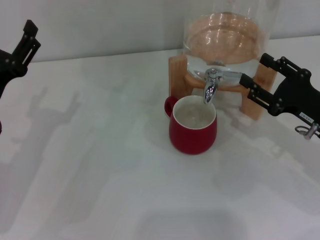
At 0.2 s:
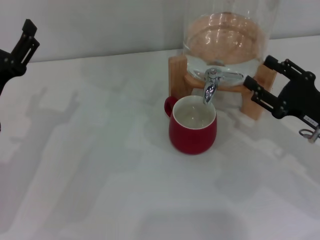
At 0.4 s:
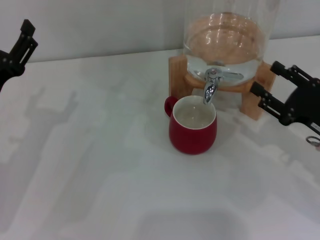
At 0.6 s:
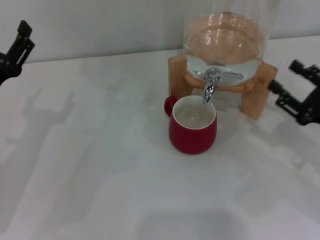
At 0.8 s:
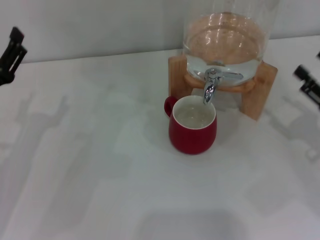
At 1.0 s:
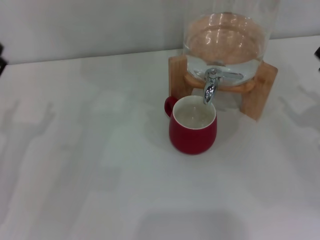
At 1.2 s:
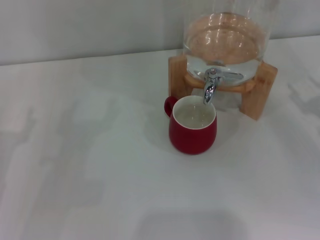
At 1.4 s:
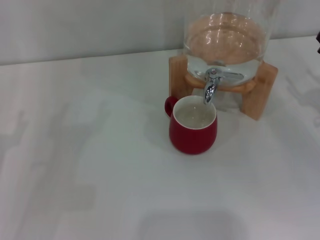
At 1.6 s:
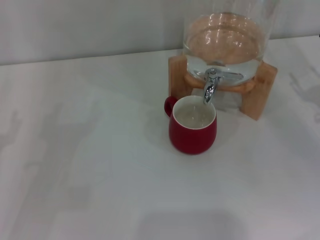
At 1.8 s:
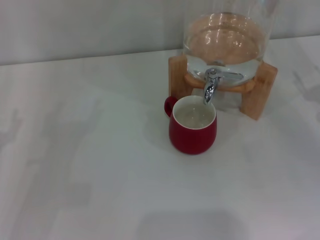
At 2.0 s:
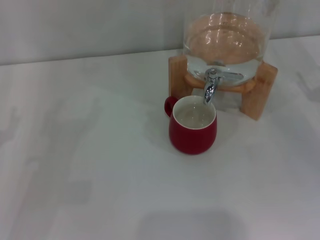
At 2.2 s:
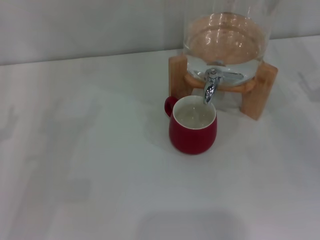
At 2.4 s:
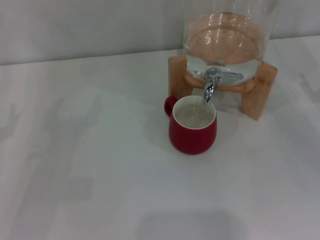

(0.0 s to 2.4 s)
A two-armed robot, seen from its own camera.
Task of the whole recording: the left gripper pick up the red cup and place it horizontally under the faucet, the right gripper turn on the faucet to fill the cup, and then turn off the faucet.
0.0 s - 1.2 s: The left gripper ends up some 5 cm from where it was, while the right gripper shifts roughly 5 cm to the right.

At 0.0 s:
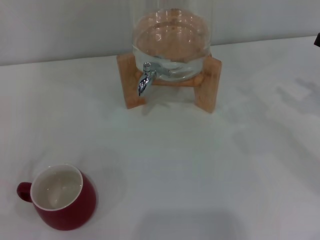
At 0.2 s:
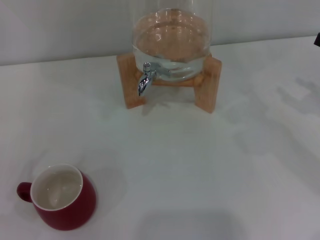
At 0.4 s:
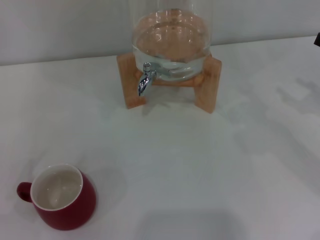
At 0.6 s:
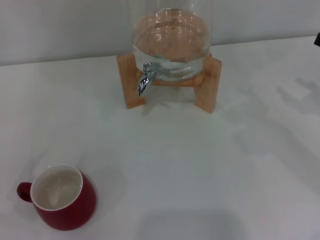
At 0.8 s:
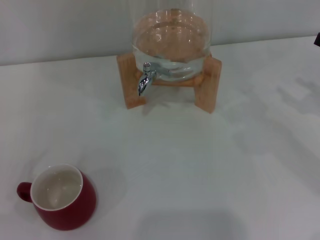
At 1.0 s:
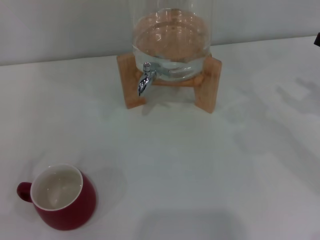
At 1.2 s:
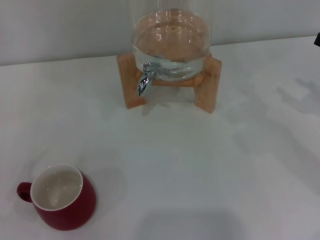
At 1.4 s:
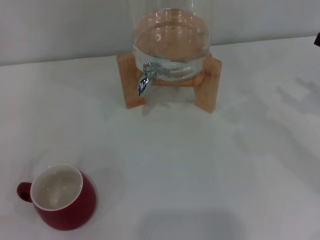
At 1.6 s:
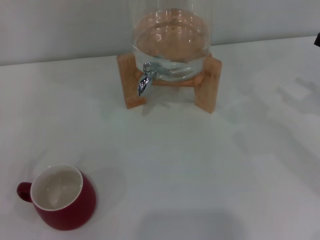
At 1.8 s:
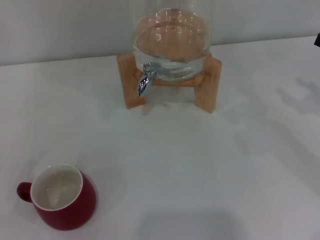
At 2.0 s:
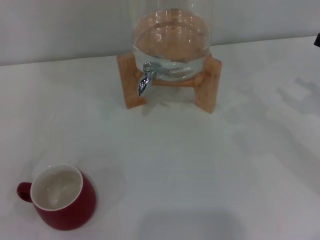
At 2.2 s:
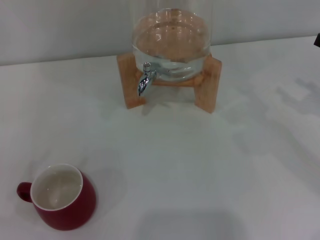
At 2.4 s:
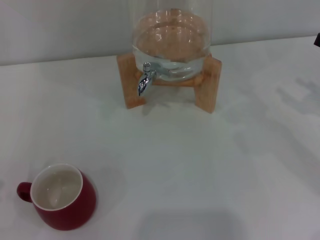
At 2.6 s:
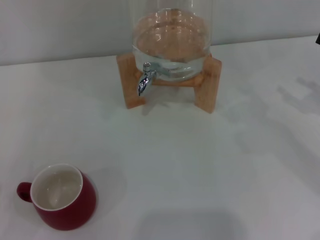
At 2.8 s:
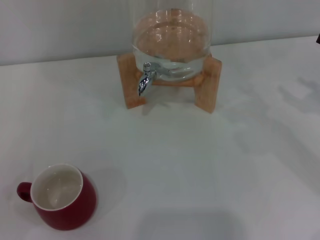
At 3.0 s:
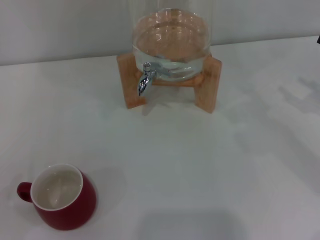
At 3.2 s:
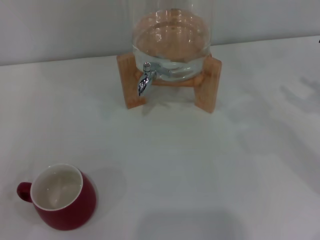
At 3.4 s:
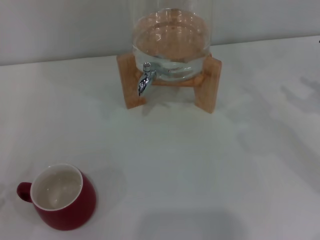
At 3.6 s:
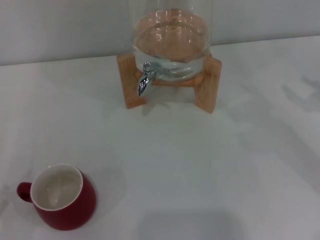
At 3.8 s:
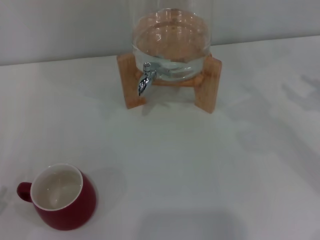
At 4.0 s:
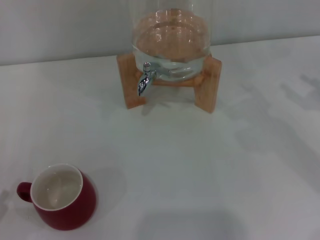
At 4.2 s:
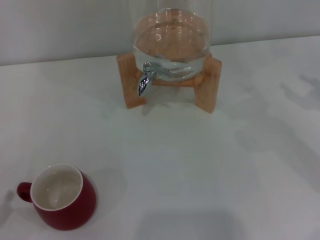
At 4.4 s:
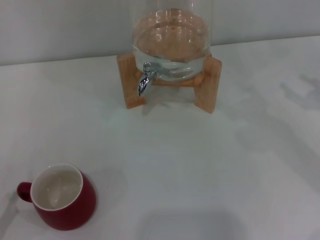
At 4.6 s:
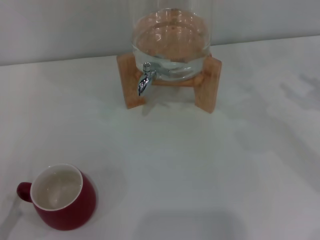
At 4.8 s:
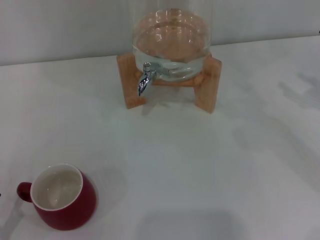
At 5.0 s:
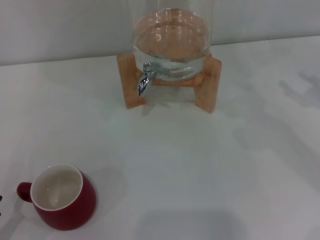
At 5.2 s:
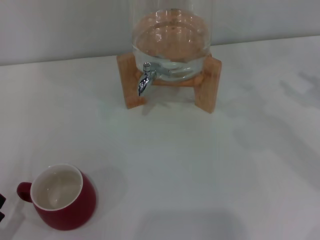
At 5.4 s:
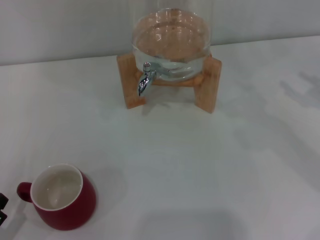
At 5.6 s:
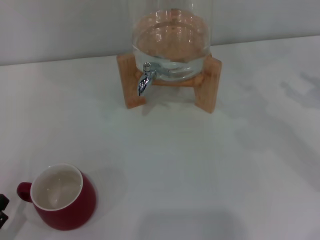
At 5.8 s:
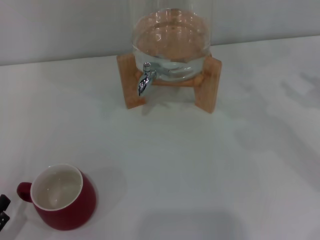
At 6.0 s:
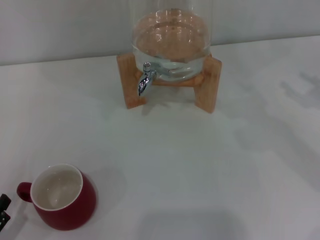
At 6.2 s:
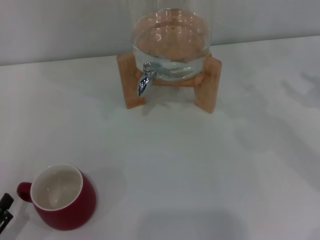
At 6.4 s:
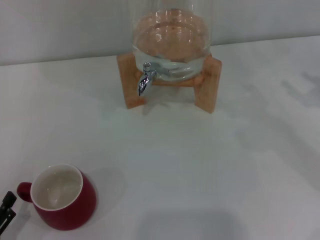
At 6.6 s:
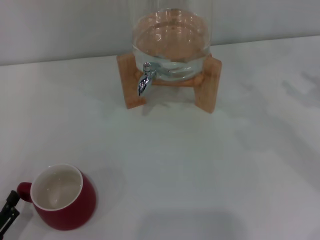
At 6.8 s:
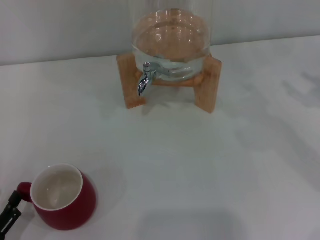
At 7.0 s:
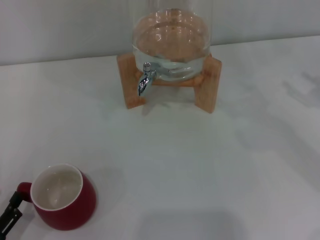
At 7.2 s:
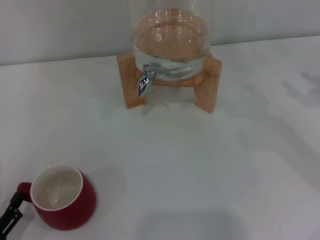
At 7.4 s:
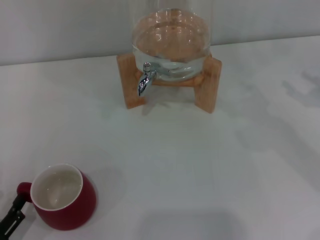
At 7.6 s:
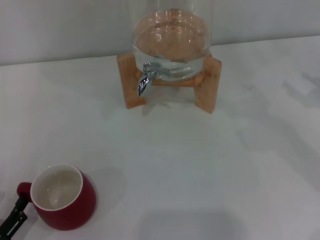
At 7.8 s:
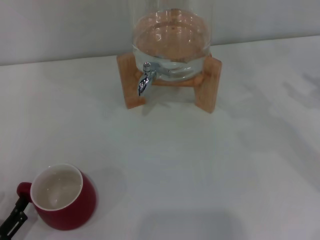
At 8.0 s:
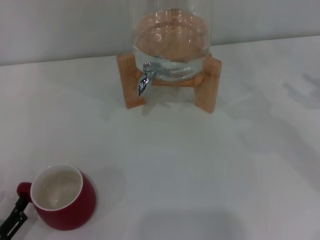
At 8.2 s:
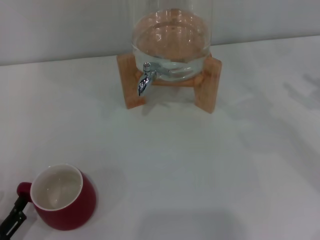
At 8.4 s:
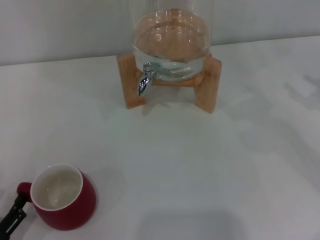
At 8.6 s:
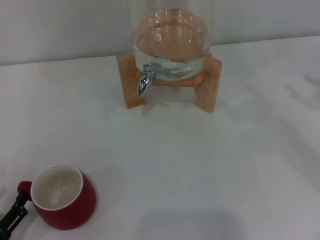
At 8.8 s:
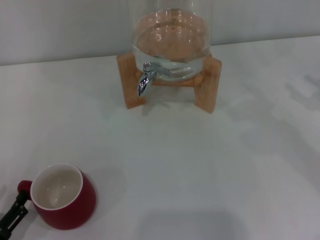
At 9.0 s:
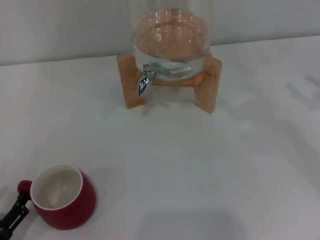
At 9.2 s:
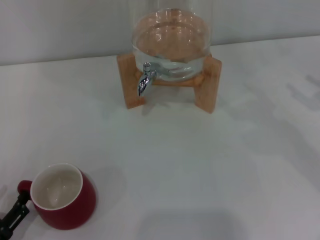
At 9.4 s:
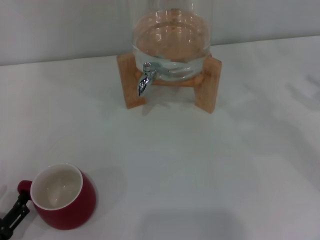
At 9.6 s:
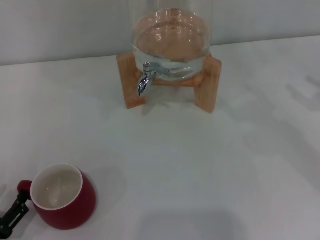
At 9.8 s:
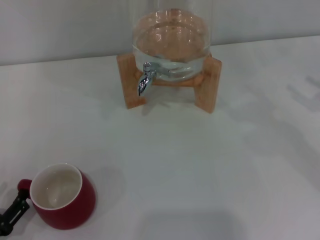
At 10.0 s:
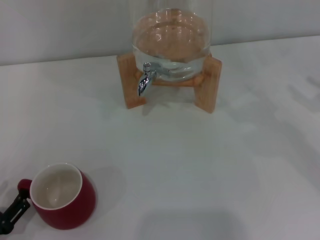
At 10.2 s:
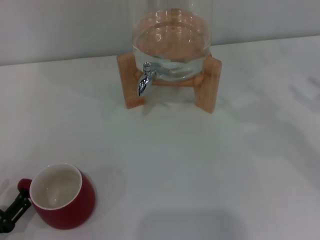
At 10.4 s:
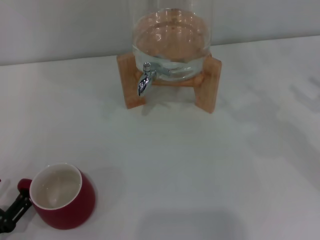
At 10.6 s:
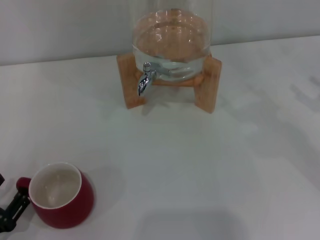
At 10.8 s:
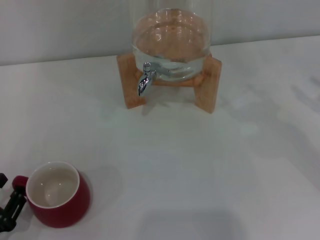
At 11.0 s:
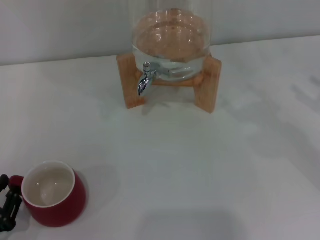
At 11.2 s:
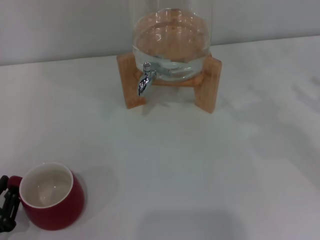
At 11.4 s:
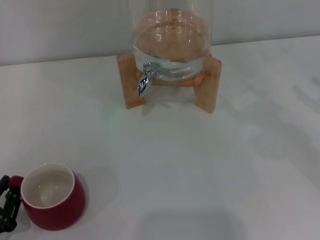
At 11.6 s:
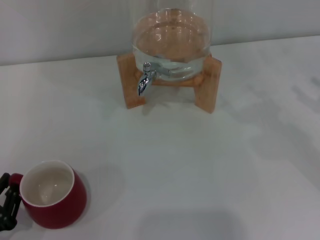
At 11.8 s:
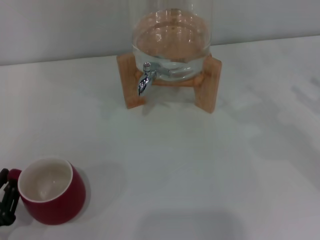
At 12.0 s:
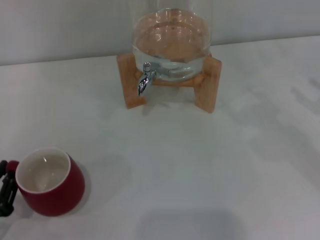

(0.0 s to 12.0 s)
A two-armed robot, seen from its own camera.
Task of the whole recording: the left gripper pick up the red cup and place it horizontally under the faucet, the right gripper turn on the faucet to fill the cup, and then turn off the faucet.
0.0 s - 1.6 s: Neither gripper changes place.
6.0 s - 7.6 s: The grippers make only small movements.
7.6 s - 9.0 s: Both grippers stay put.
9.0 s - 10.4 s: Both grippers stay put.
10.4 s - 12.0 s: The left gripper closes.

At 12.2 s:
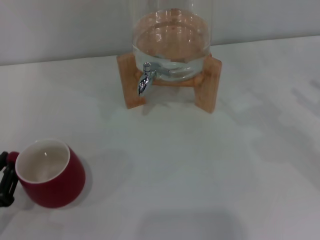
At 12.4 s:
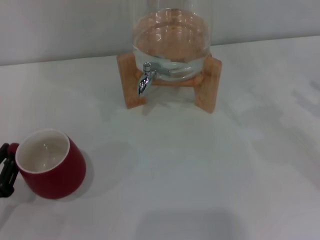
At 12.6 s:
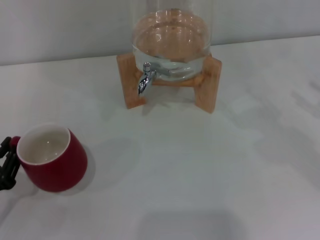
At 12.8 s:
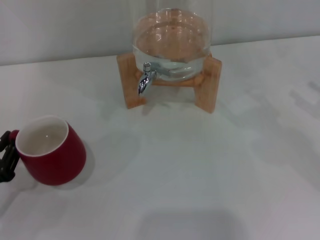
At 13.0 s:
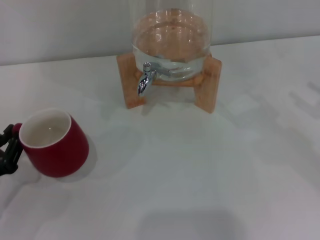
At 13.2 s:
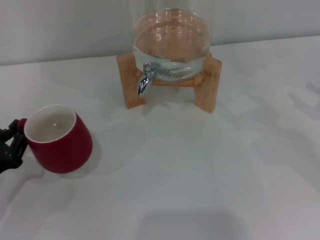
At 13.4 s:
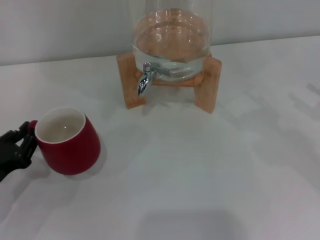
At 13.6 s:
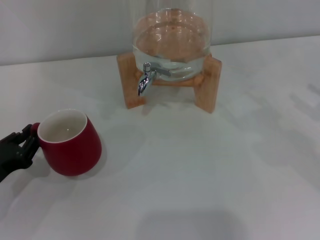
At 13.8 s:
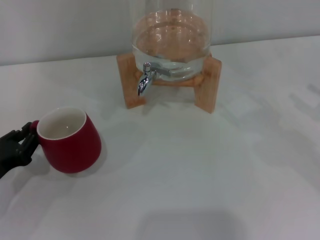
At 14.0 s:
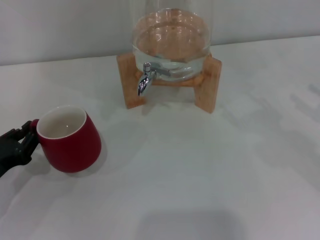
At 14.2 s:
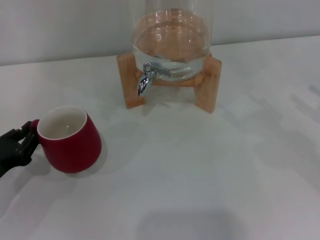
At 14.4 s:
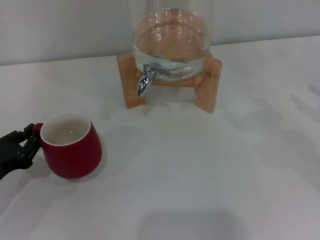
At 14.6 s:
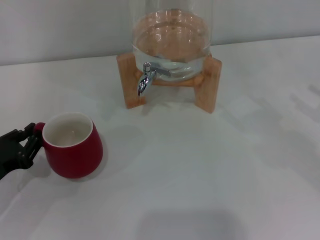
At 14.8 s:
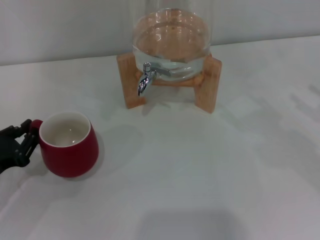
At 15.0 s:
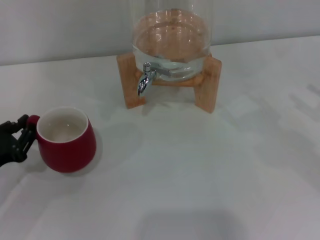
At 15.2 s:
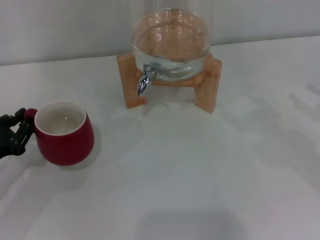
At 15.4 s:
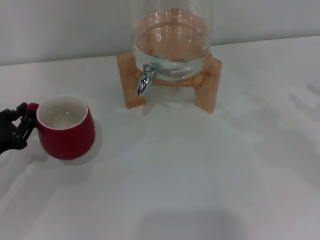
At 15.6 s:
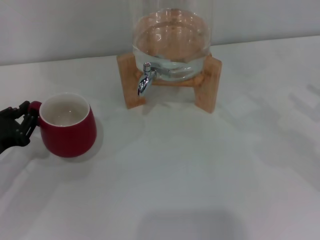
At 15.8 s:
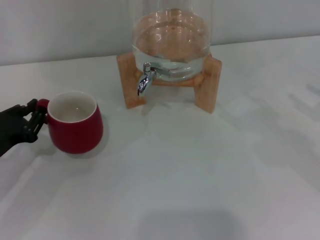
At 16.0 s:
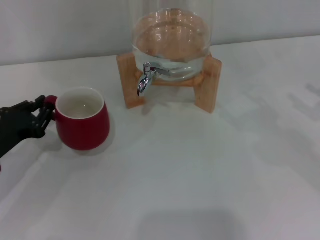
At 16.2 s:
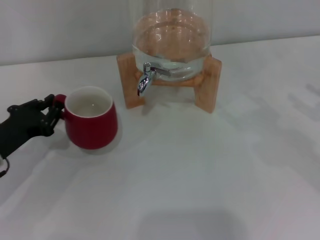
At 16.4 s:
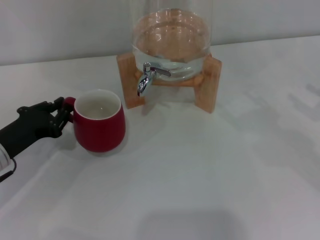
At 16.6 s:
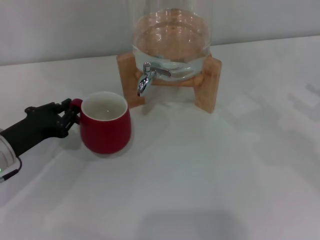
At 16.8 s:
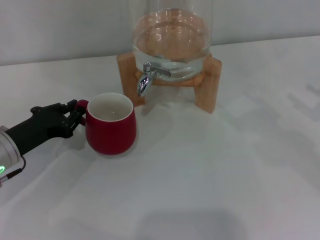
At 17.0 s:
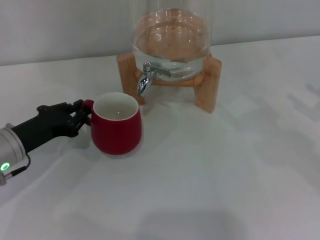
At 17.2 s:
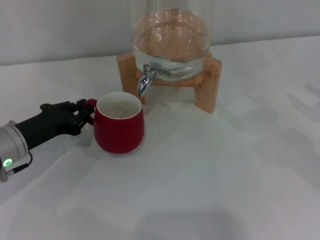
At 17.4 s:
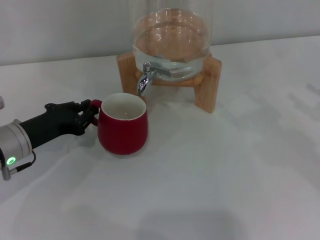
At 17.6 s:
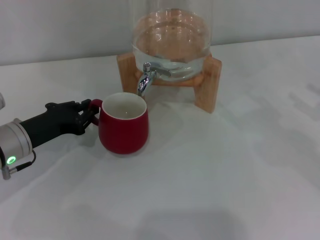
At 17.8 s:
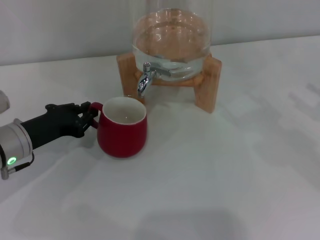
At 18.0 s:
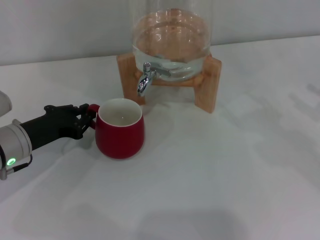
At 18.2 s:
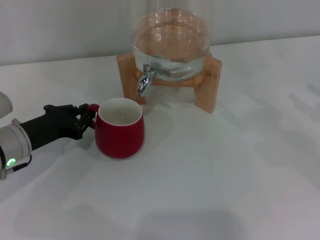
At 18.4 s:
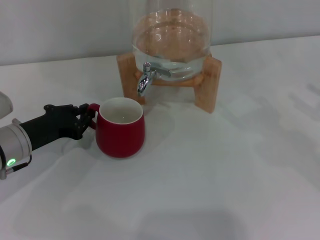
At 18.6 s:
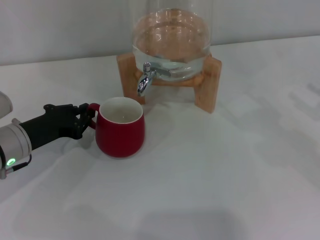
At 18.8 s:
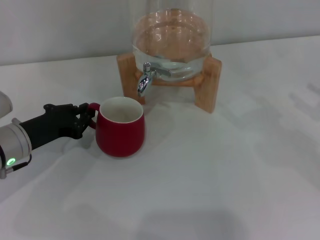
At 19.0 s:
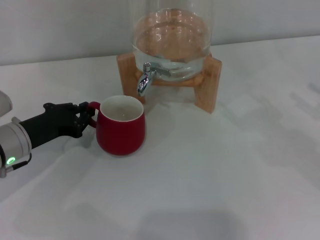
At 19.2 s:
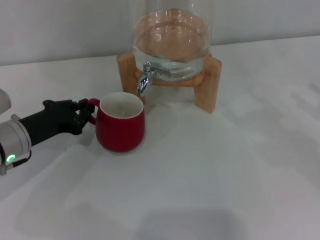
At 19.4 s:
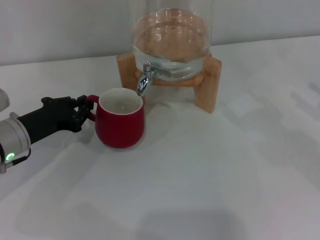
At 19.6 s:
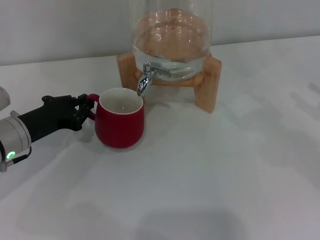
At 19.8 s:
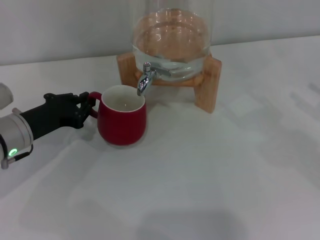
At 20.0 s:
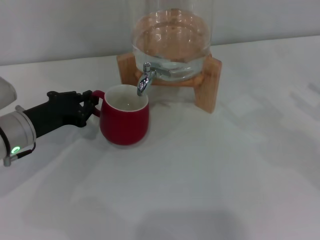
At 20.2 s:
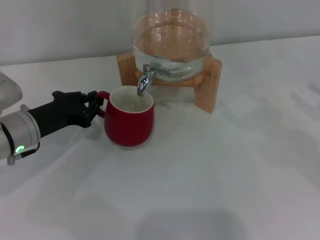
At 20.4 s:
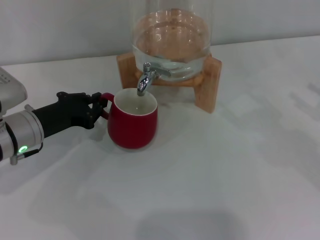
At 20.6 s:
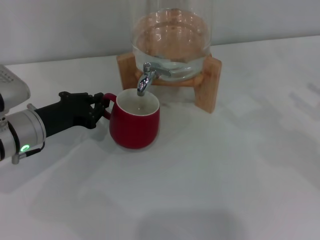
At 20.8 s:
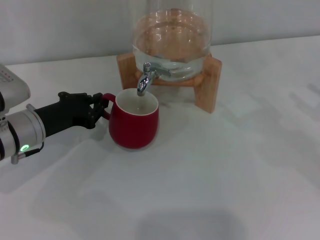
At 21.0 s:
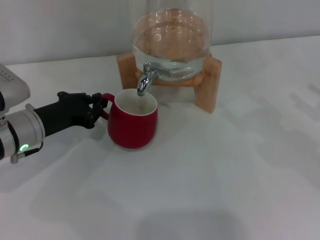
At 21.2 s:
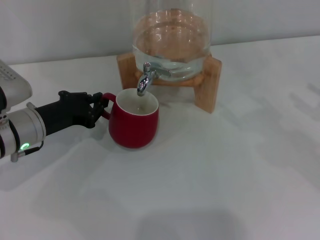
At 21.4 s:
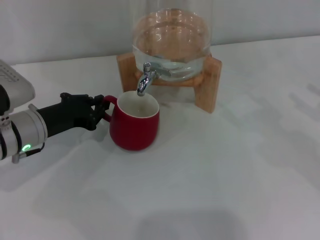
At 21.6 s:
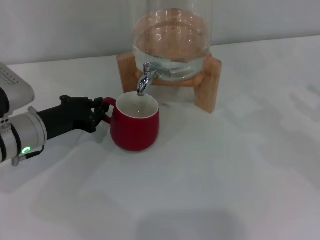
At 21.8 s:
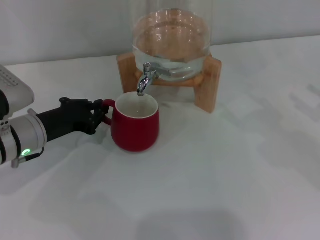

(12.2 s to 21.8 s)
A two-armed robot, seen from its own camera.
Task of the whole recording: the left gripper pick up the red cup and place it horizontally under the faucet, the right gripper turn on the faucet to fill the cup, and then turn off the faucet.
12.2 s - 13.8 s: The left gripper travels forward by roughly 5 cm.
13.8 s - 15.4 s: The grippers move only a little.
15.4 s - 17.0 s: The left gripper shifts some 5 cm to the right.
17.0 s - 20.2 s: The grippers stay close to where they were, moving slightly.
20.2 s - 21.8 s: Both grippers stay about where they are.
